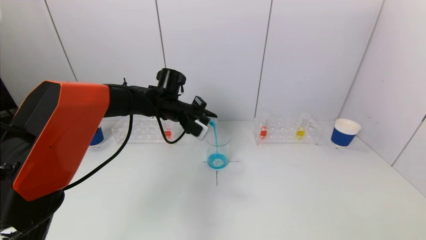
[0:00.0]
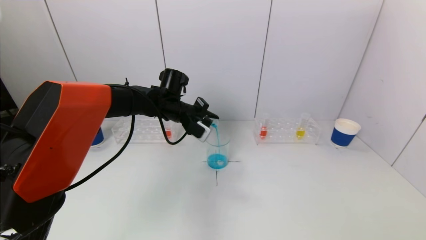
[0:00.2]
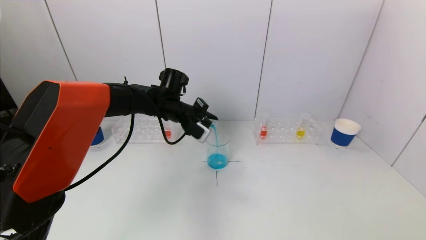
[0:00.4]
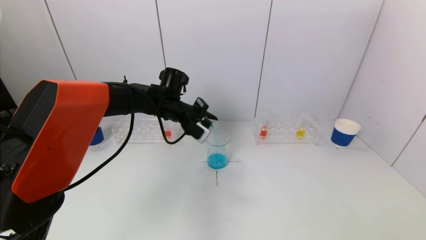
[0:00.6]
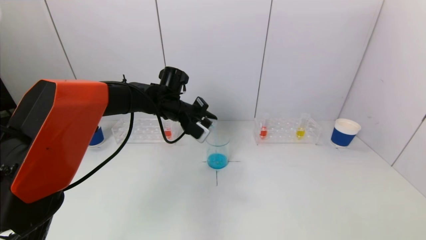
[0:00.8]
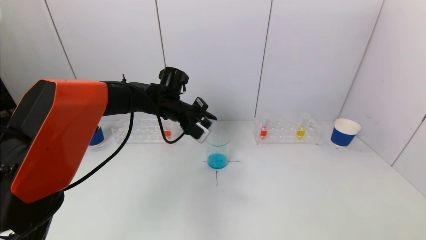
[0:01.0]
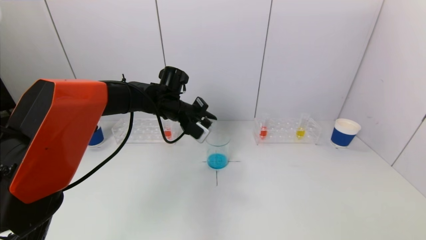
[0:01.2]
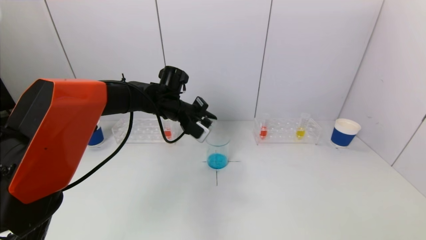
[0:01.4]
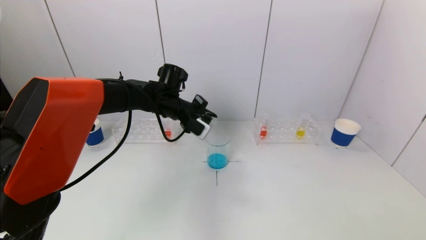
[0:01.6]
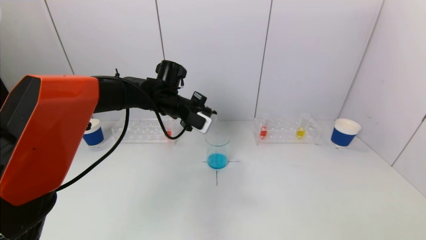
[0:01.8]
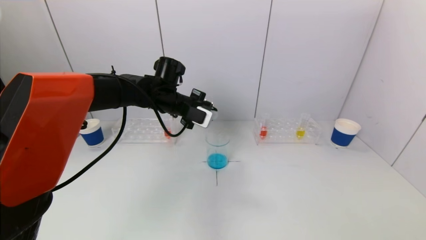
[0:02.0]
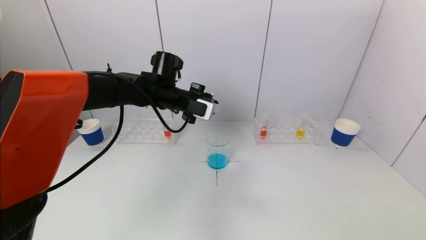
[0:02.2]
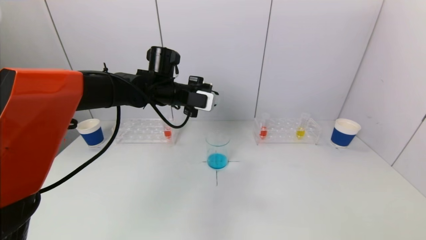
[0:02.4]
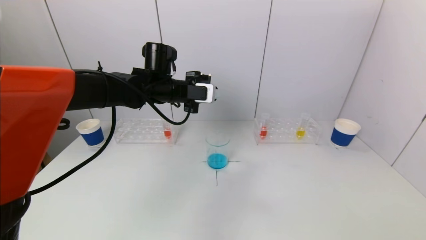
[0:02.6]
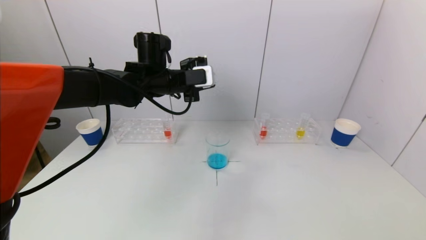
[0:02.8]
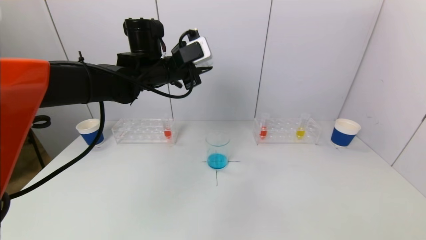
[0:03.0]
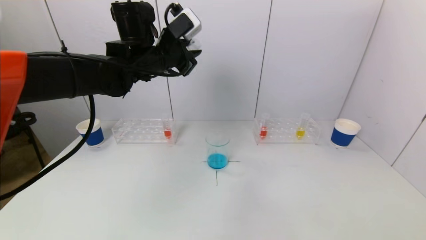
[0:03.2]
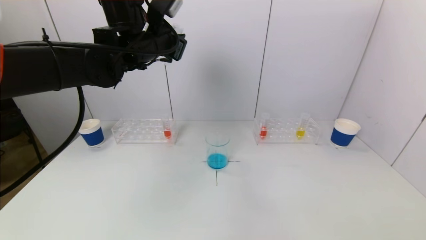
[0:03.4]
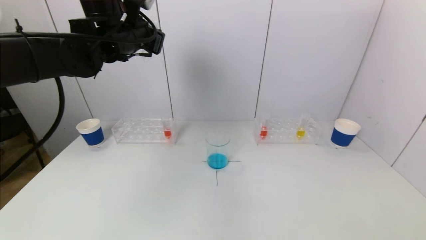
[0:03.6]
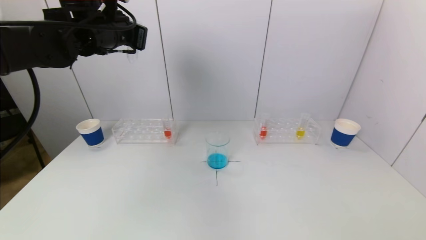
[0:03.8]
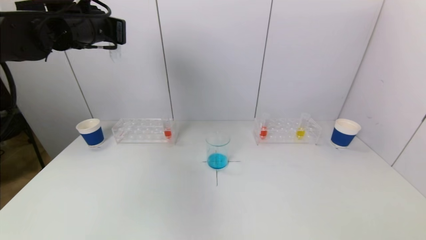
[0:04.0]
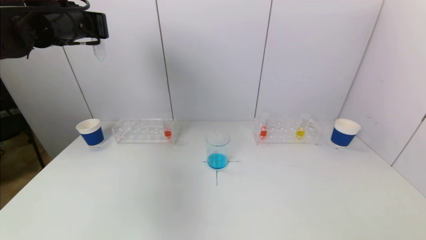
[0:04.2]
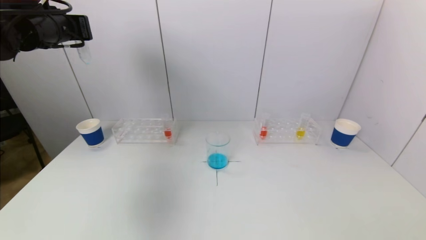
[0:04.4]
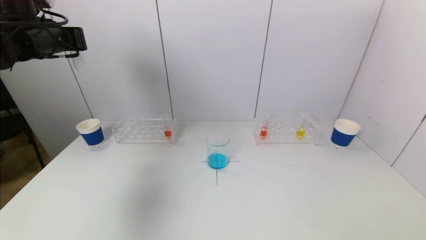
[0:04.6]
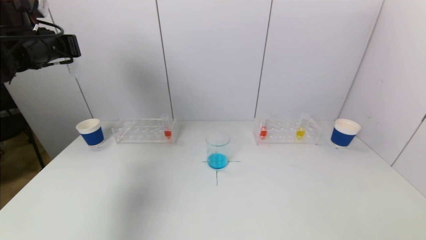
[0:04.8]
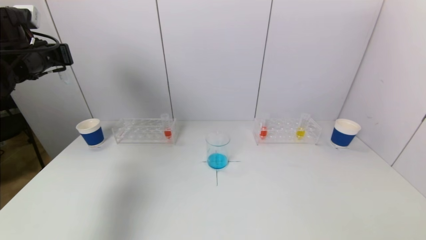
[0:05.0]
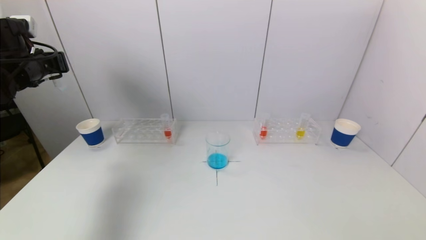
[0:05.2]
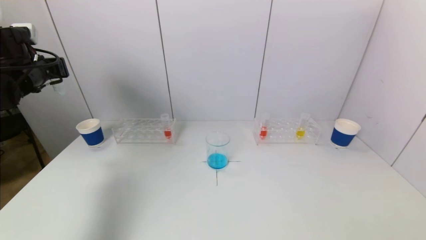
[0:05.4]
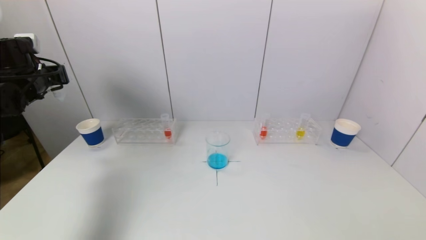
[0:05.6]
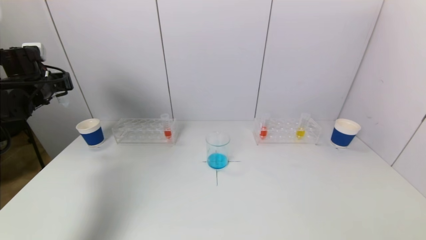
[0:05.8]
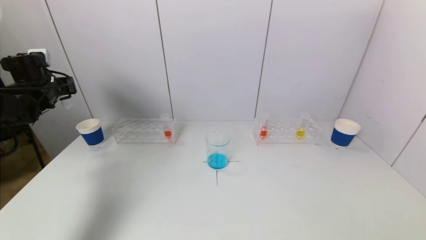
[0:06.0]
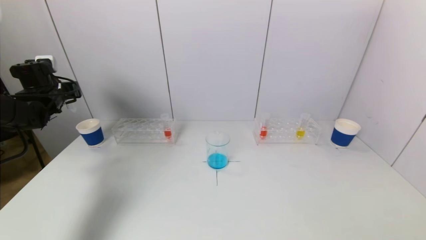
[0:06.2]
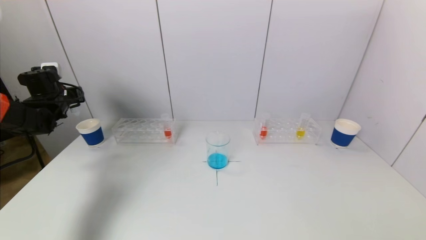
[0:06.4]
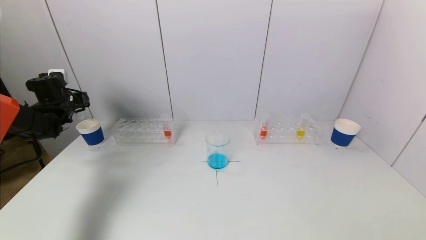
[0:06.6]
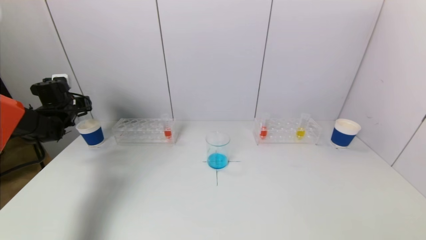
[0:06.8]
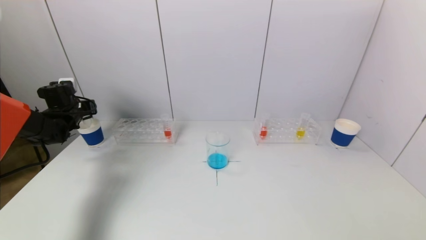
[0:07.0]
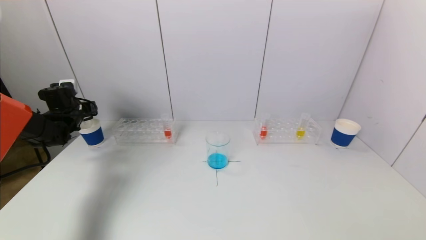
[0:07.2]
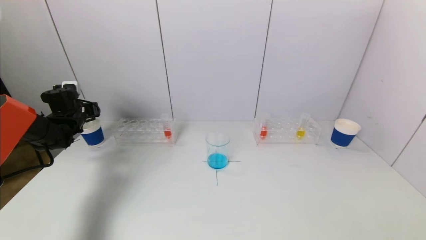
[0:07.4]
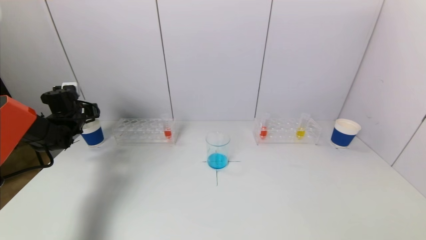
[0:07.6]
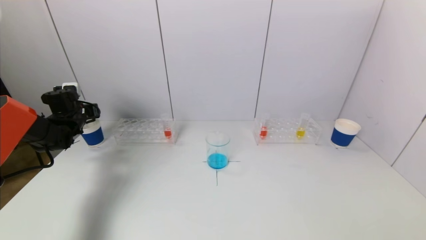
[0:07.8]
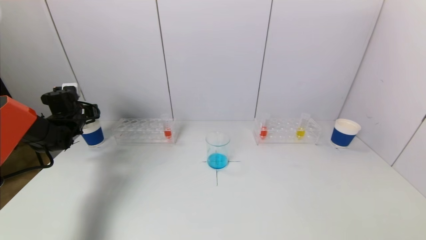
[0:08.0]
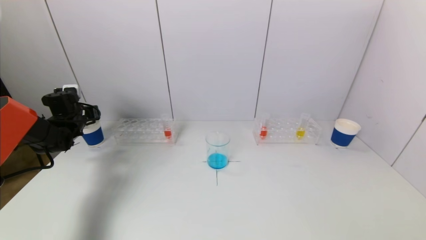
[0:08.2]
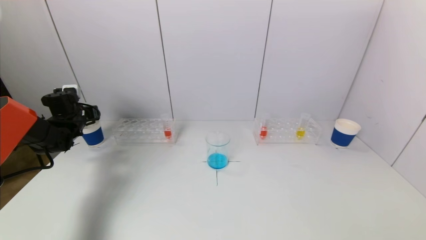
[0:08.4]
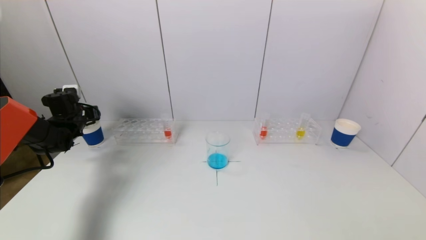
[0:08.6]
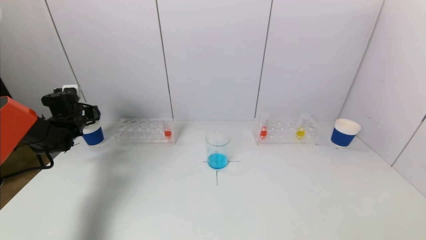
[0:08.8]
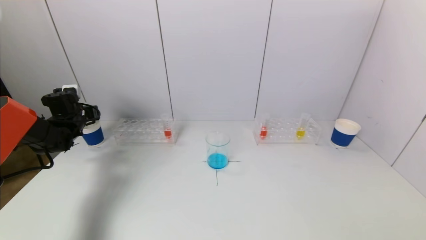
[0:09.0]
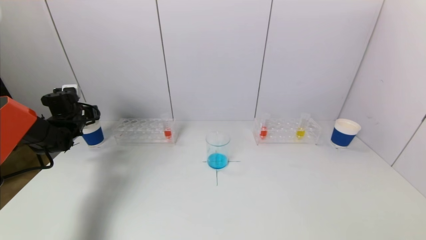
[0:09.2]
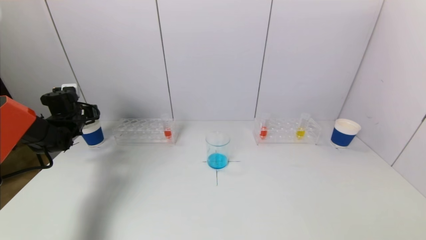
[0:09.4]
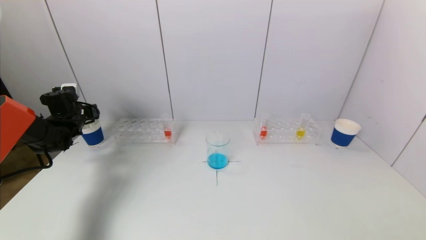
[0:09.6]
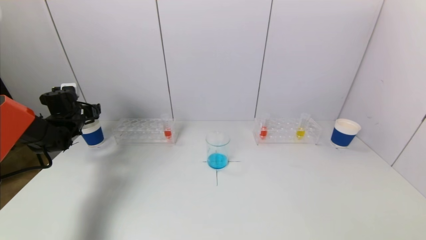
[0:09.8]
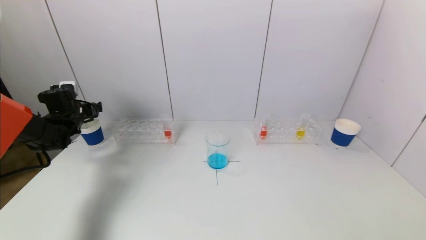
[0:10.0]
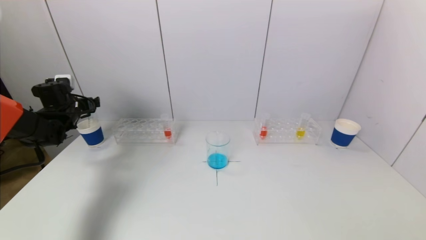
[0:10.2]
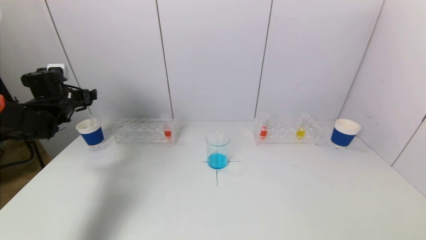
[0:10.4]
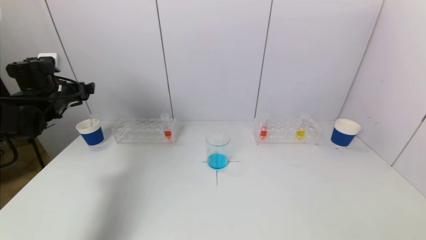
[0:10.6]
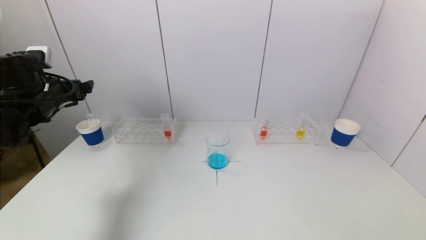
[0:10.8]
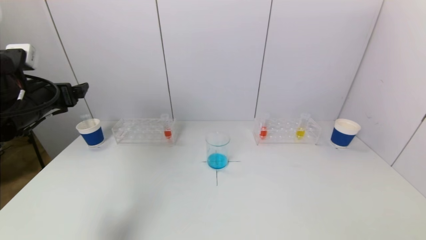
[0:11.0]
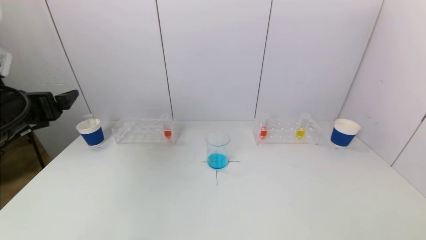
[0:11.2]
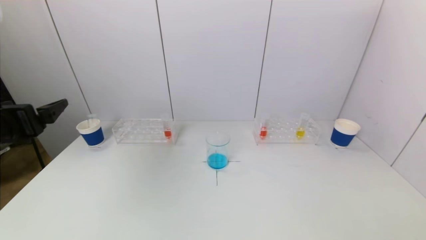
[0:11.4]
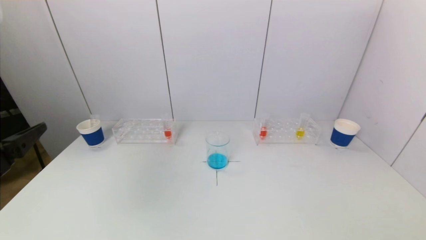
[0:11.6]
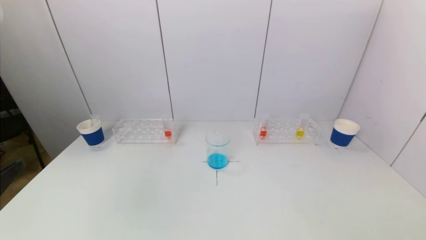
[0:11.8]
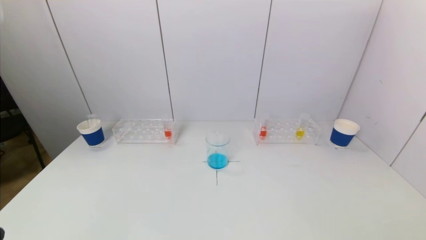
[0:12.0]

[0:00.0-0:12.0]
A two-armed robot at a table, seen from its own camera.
Task of the whole recording: pick up a test tube with pigment on left test tube rack and a test tube with pigment on right test tube rack by grippers and pour them into the beaker.
Step, 0:02.0 to 0:10.0: Place the test tube into the paper cup with the left gripper.
0:00.0 to 0:01.6: The grippers move only a little.
0:01.6 to 0:03.0: The left gripper heads upward, covering approximately 10 cm.
0:03.0 to 0:04.4: The left gripper shifts approximately 20 cm to the left and upward.
0:04.4 to 0:06.0: The left gripper is displaced downward and to the left by roughly 20 cm.
0:06.0 to 0:07.6: The left gripper heads downward, covering roughly 10 cm.
0:07.6 to 0:09.0: Both grippers stay about where they are.
0:09.0 to 0:10.4: The left gripper goes approximately 5 cm upward, and opens.
0:10.4 to 0:12.0: The left gripper is displaced backward by roughly 40 cm.

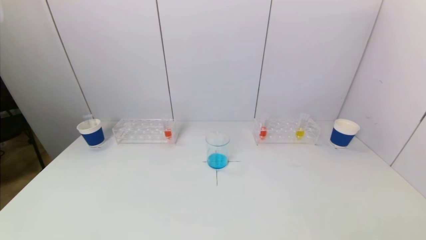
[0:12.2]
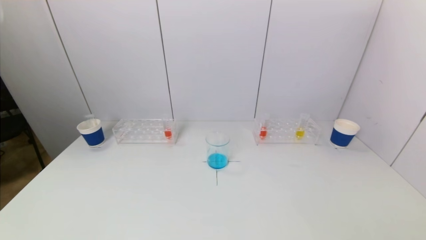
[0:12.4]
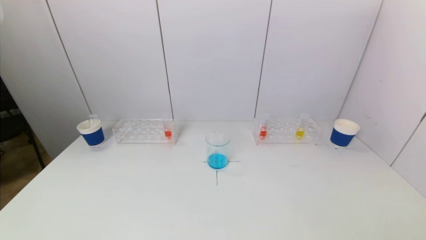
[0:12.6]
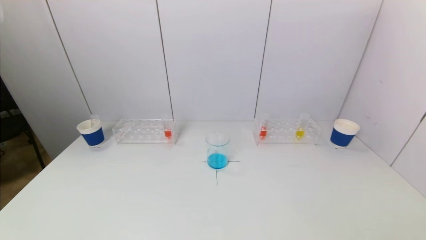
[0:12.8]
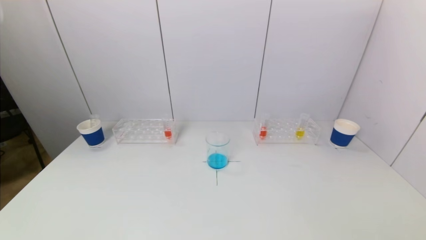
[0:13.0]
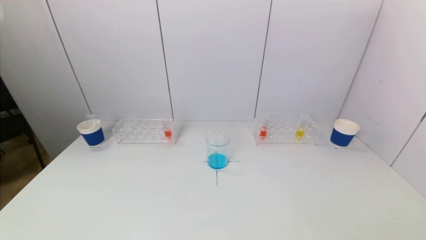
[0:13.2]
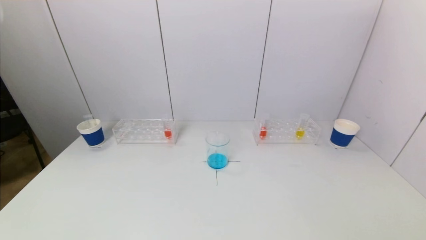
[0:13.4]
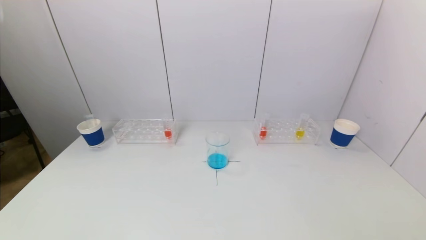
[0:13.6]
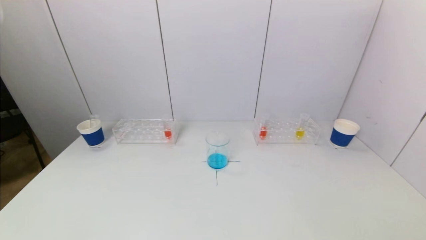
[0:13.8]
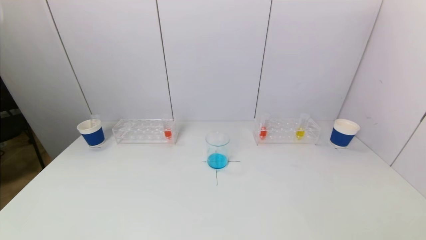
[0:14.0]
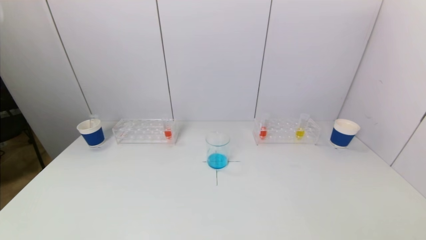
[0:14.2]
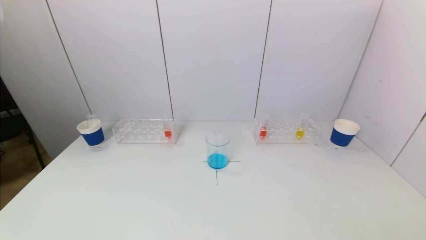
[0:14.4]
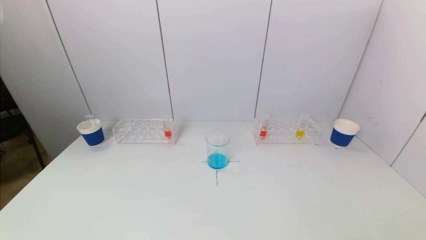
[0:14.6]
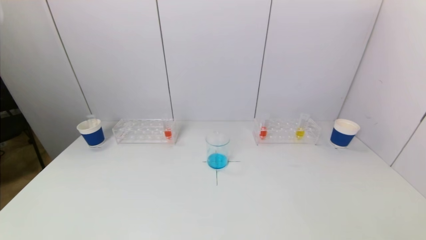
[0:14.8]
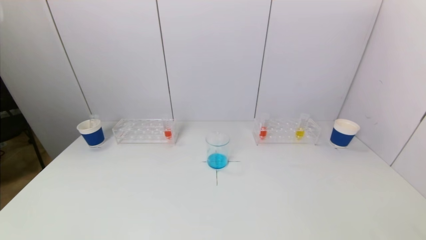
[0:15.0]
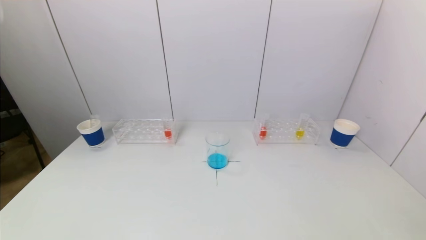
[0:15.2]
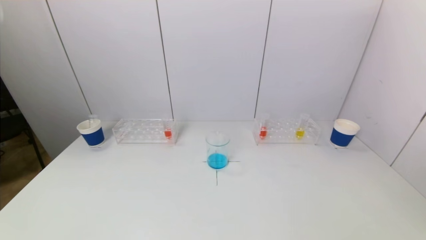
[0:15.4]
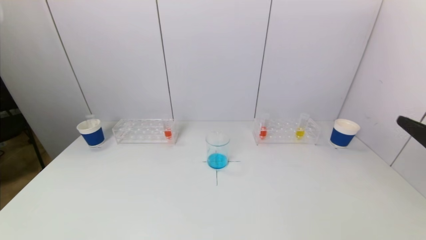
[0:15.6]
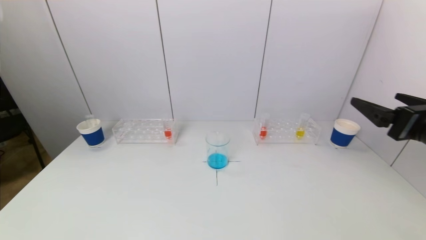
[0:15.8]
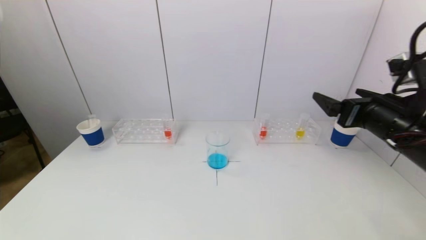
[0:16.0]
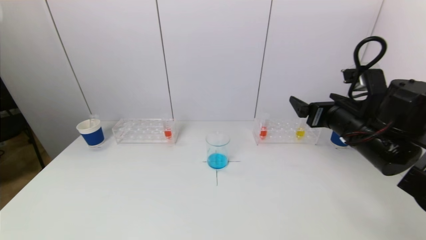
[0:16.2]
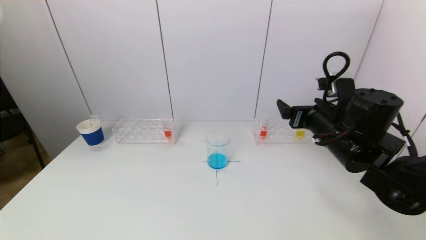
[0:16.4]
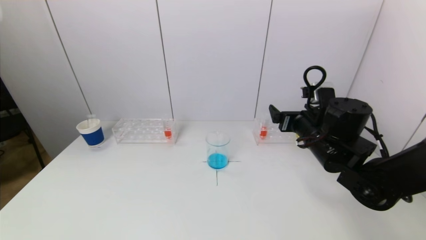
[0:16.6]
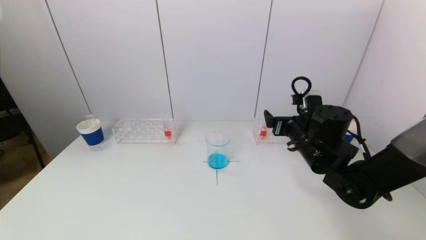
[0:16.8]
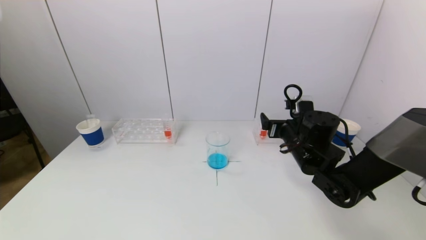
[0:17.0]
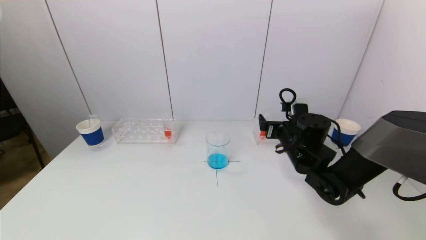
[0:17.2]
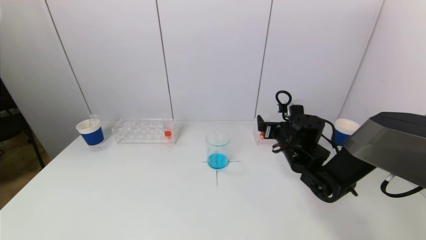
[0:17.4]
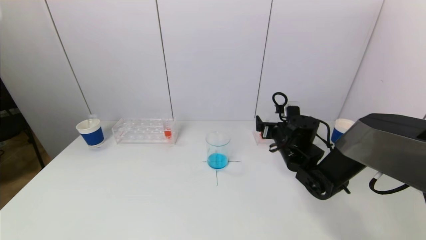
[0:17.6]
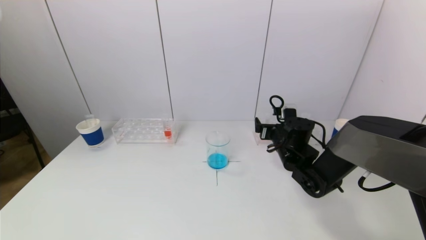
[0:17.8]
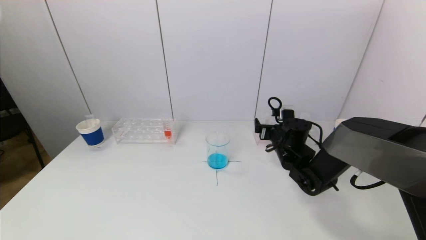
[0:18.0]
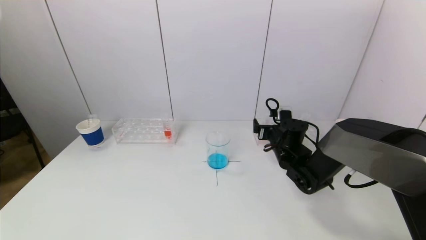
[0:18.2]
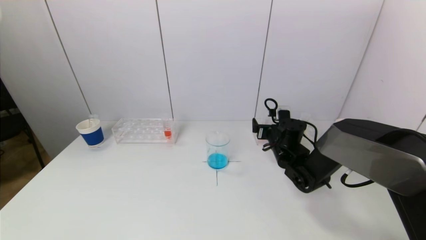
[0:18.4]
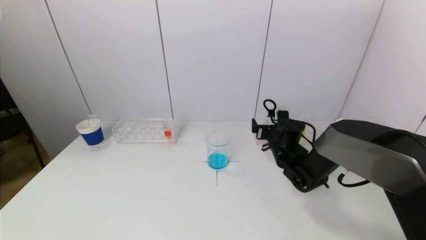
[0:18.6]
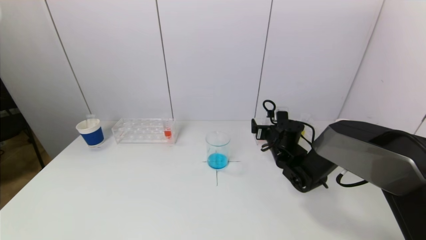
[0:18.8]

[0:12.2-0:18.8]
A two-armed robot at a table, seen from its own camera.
Task of the whole recording: pick up a test tube with pigment on left test tube rack and a test tube with pigment on right test tube rack by grippers and pour them into the beaker.
0:15.4 to 0:17.2: The right gripper travels forward, to the left and downward by roughly 35 cm.
0:17.2 to 0:18.8: The right gripper moves forward and downward, about 10 cm.
